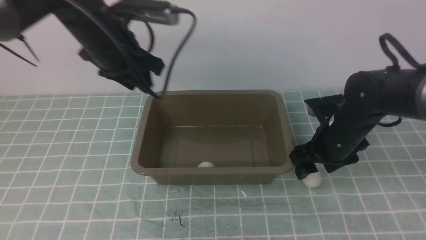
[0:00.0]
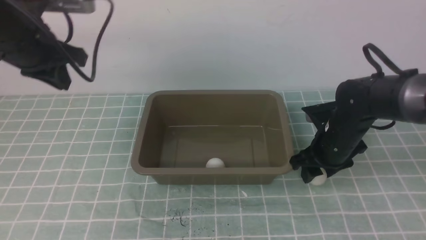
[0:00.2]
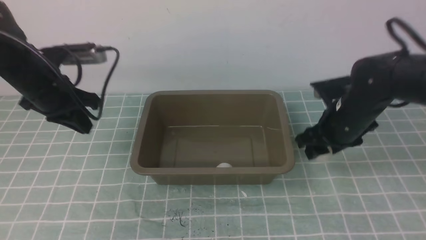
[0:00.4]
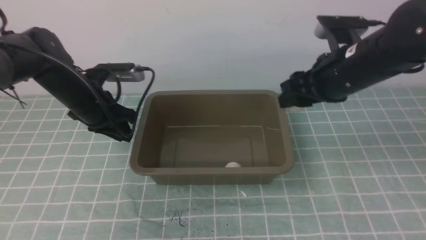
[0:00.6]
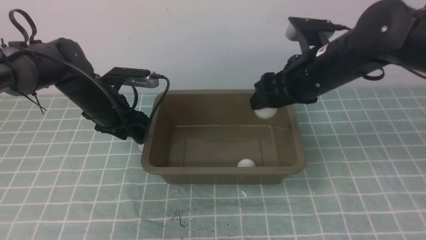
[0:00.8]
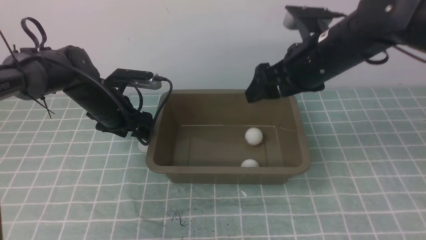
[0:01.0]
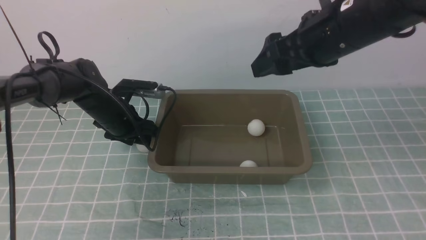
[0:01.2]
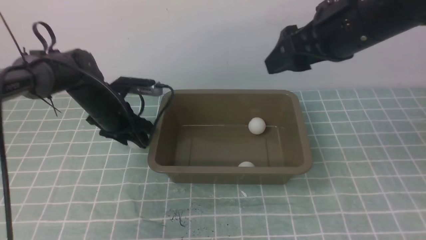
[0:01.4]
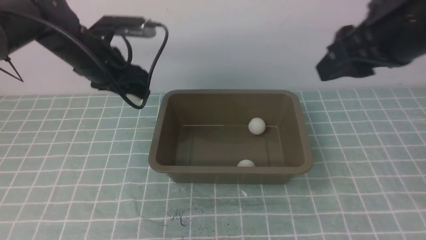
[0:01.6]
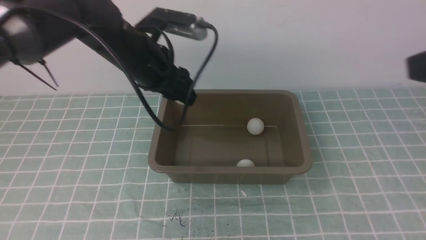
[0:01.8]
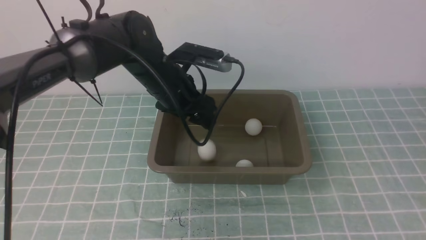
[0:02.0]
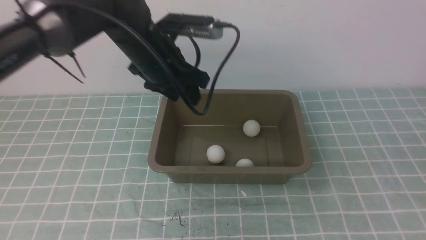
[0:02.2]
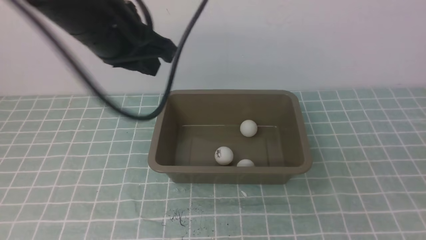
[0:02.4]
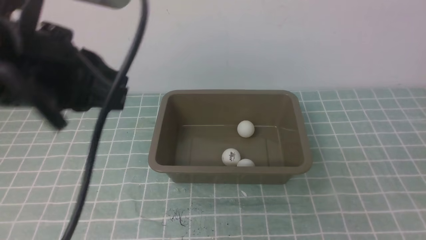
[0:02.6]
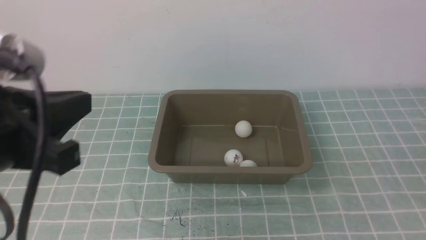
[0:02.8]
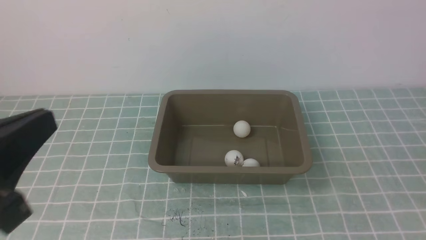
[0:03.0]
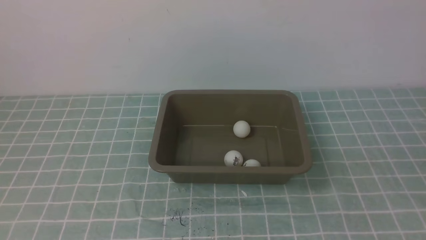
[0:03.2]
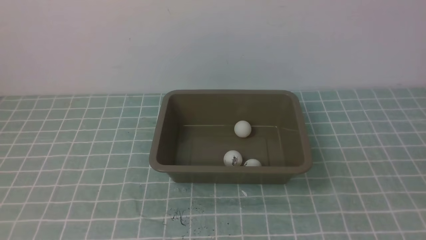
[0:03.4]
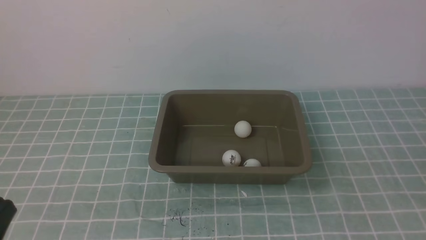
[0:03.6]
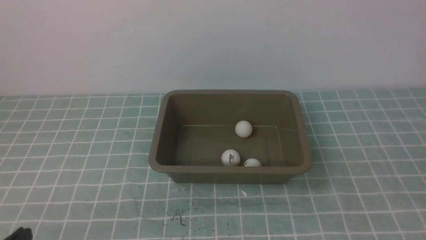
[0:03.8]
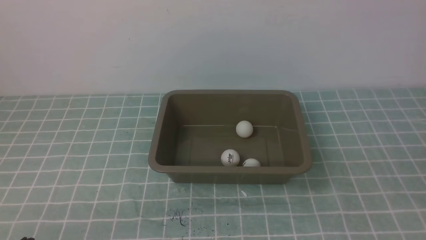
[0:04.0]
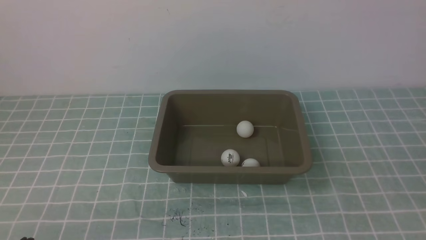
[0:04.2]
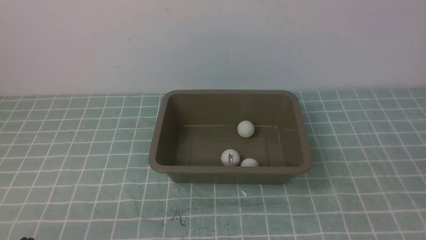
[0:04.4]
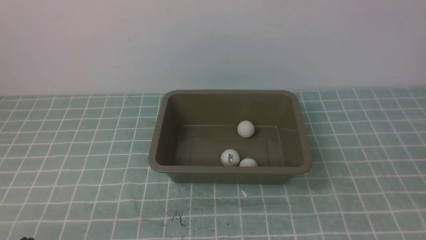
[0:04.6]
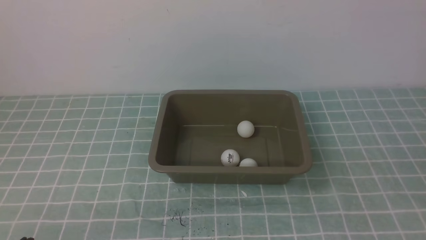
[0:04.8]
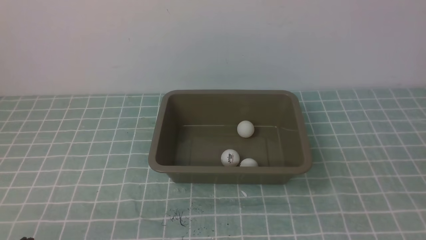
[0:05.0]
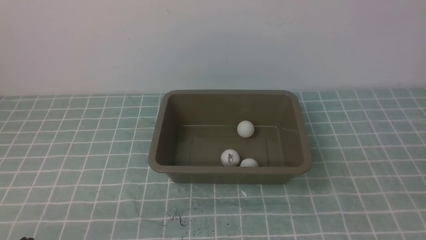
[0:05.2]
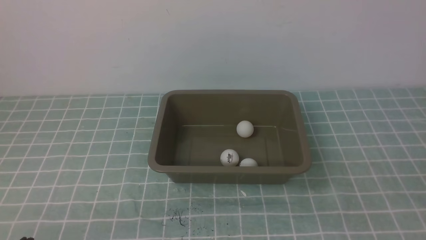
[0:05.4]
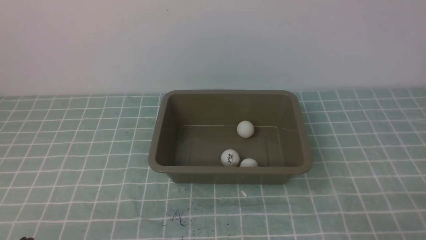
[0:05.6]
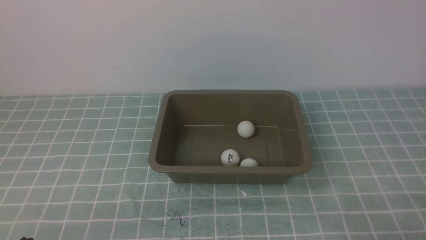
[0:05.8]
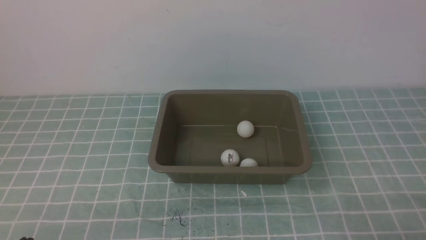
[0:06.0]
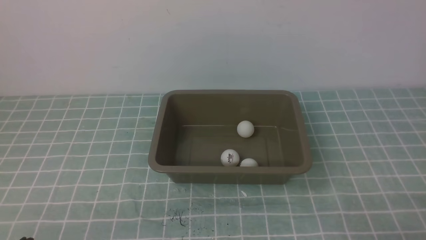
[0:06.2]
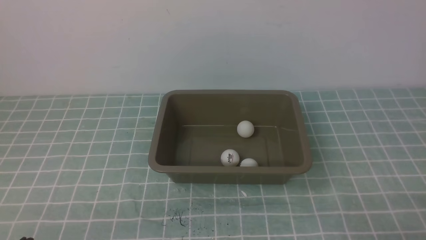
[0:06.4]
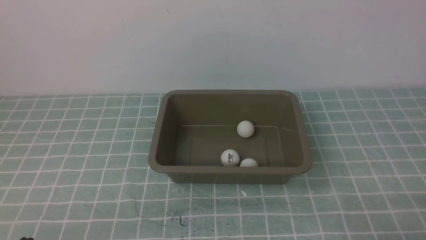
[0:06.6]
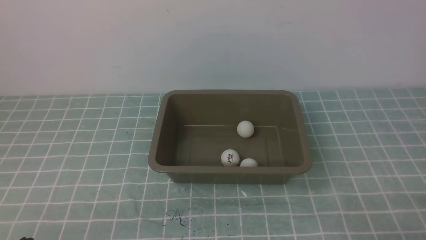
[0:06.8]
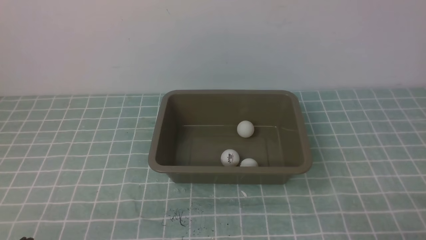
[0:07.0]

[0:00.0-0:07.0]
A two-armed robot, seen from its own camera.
Step, 0:00.4 to 0:00.8: use the right arm to put the table tennis ball into the box.
Step, 0:01.0 to 0:01.2: use the left arm to clamp the table tennis ball closest to it.
Step, 0:01.6 to 0:02.0: use the left arm to put the table tennis ball into the box.
0:00.0 to 0:01.4: The left gripper heads downward, covering some 10 cm, and closes, then reopens, while the right gripper travels upward by roughly 20 cm.
0:01.4 to 0:02.8: The left gripper moves backward and upward, approximately 35 cm, and closes its fingers, while the right gripper goes roughly 30 cm backward and to the right, and closes its fingers.
0:02.8 to 0:04.2: The left gripper is displaced downward by about 20 cm.
